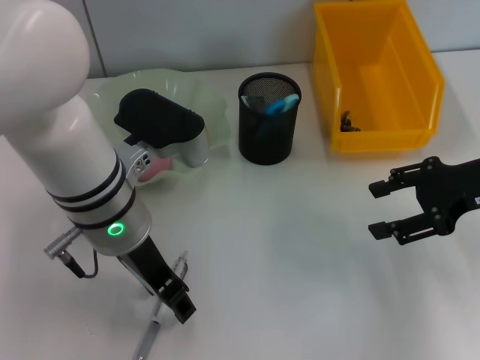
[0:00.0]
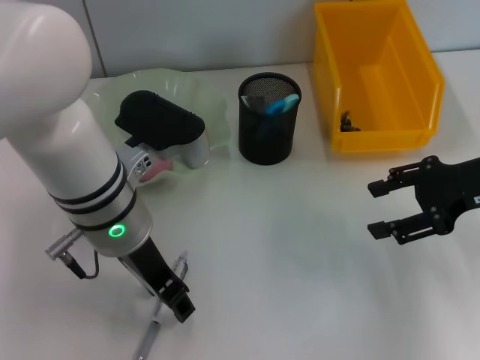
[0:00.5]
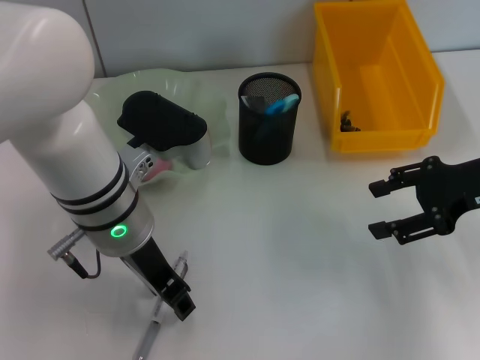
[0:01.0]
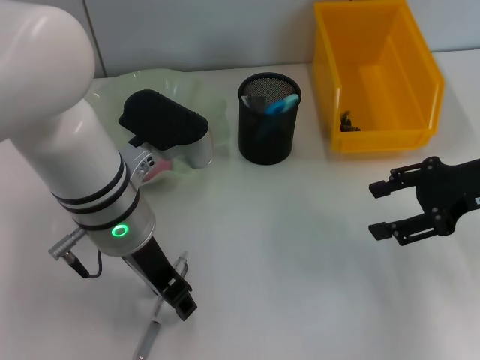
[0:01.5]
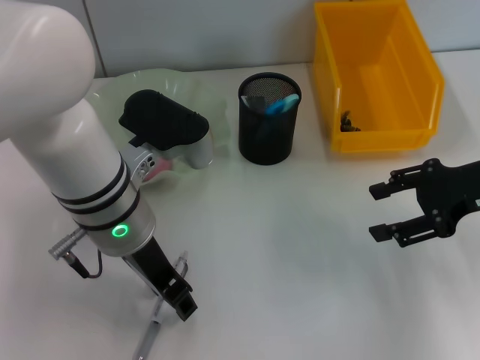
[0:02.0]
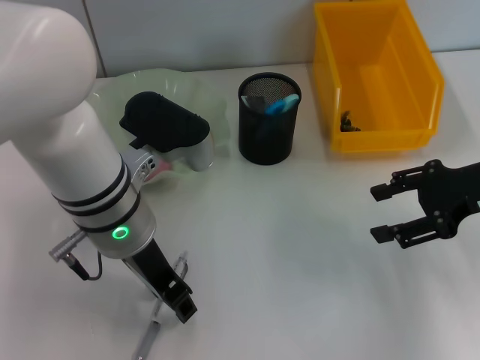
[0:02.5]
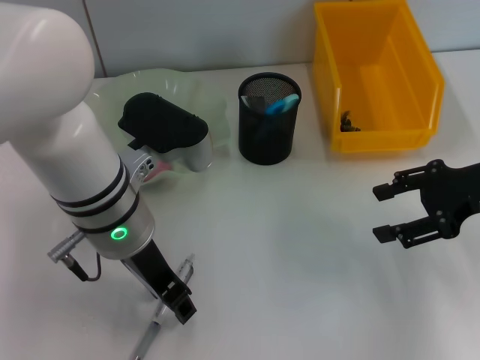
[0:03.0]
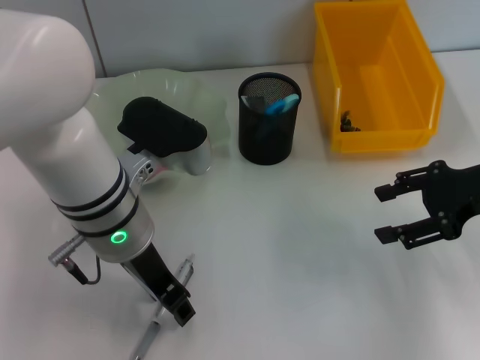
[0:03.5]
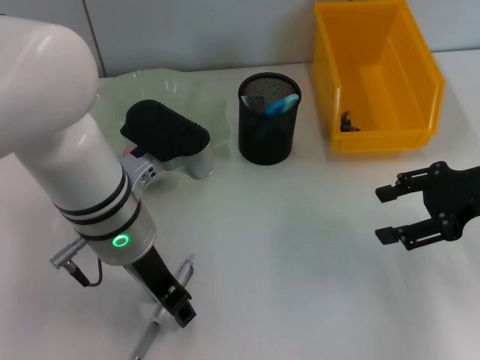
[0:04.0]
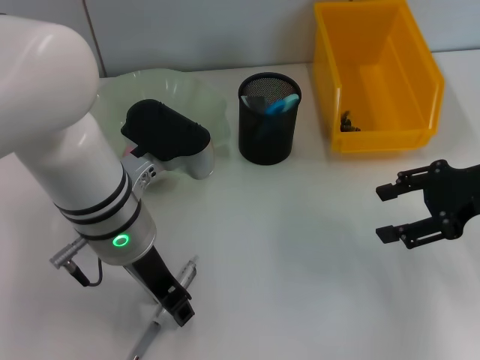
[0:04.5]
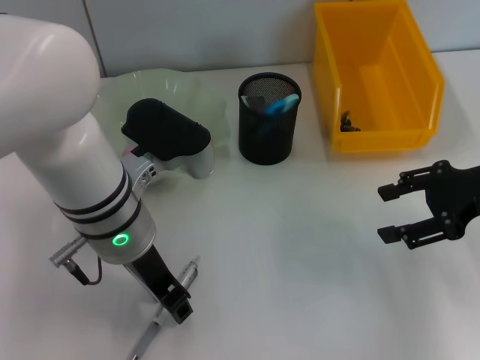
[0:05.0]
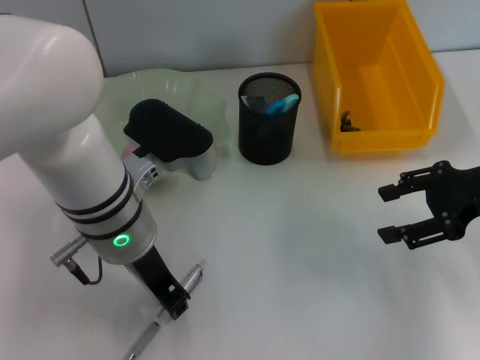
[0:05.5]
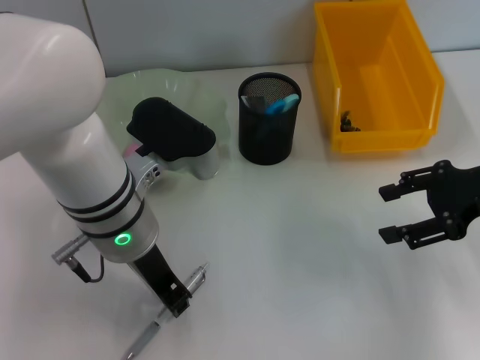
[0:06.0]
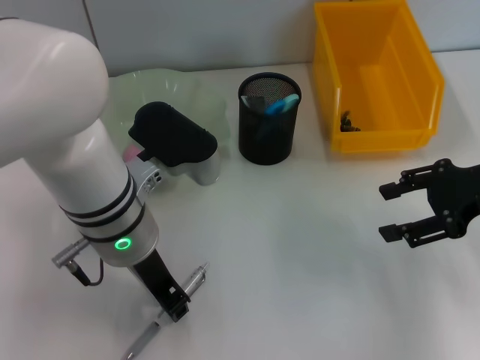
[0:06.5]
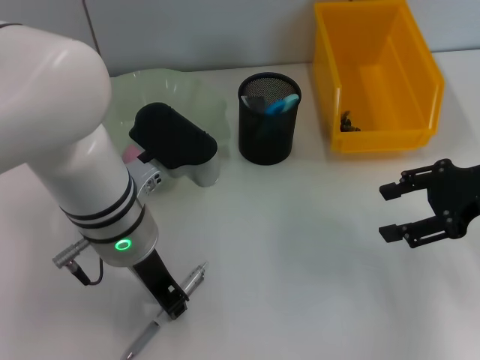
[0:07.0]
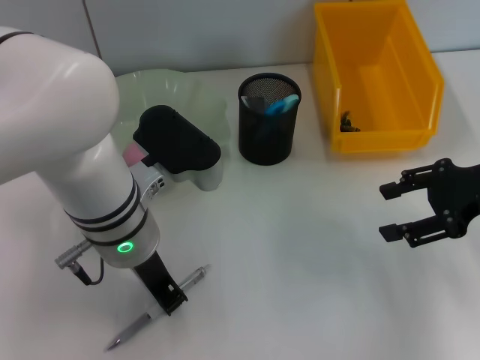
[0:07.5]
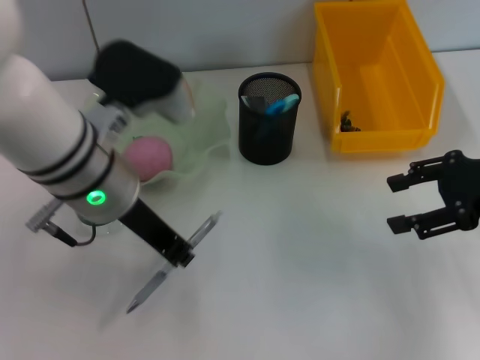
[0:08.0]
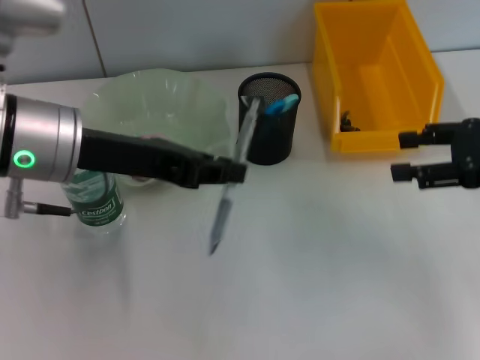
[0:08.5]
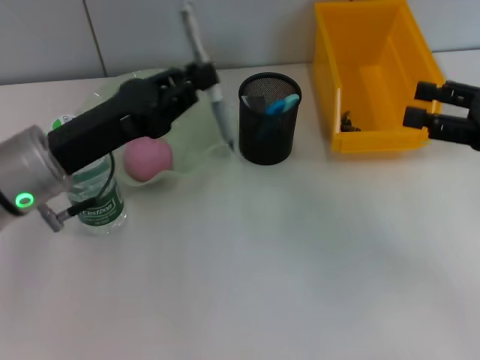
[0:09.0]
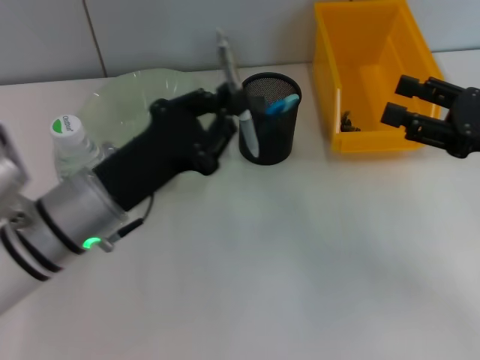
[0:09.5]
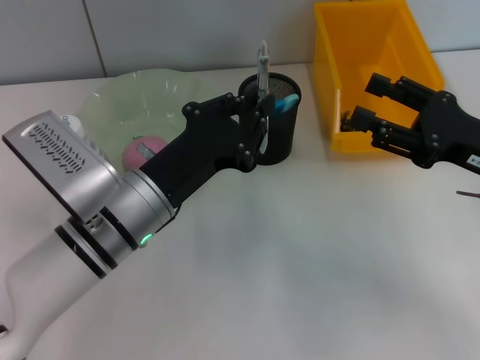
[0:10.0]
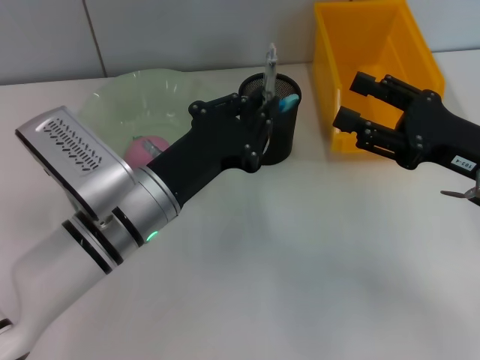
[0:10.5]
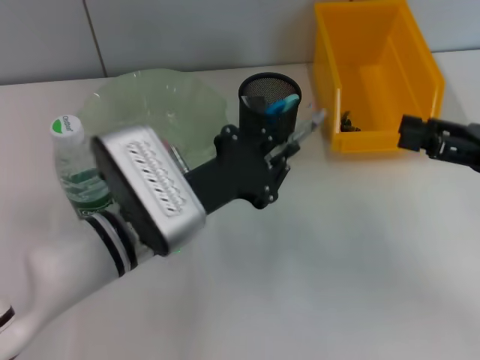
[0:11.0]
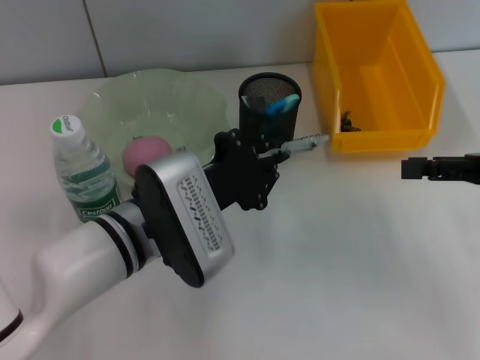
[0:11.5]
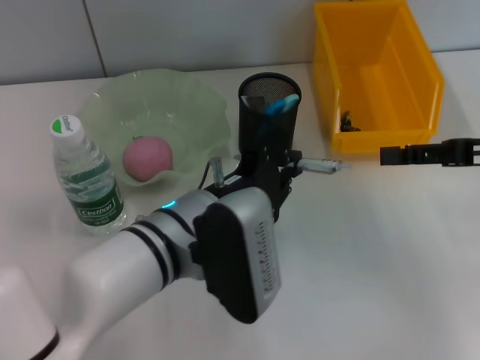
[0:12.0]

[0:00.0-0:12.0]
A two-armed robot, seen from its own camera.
Step, 0:00.0 to 0:07.0: Grab the gray spring-action pen with the left hand.
0:00.0 to 0:04.0: Neither gripper changes place.
0:04.0 to 0:06.0: The left gripper closes up.
0:08.0 to 0:10.0: The right gripper moves roughly 5 cm; the left gripper travels downward by about 10 cm.
0:10.0 to 0:12.0: The right gripper ends up roughly 5 cm from where it was. The left gripper is displaced to the right by approximately 5 cm.

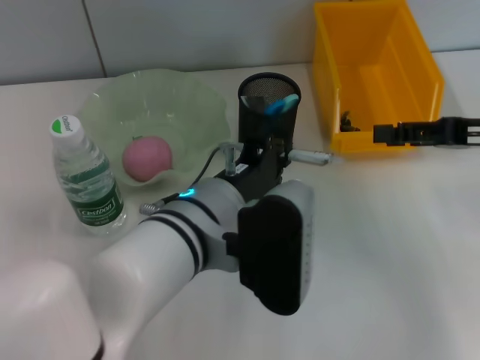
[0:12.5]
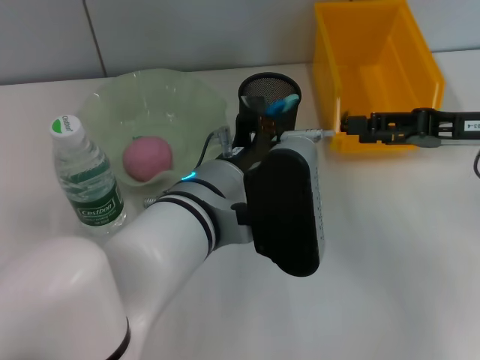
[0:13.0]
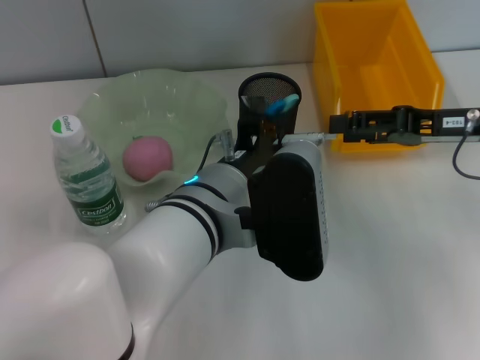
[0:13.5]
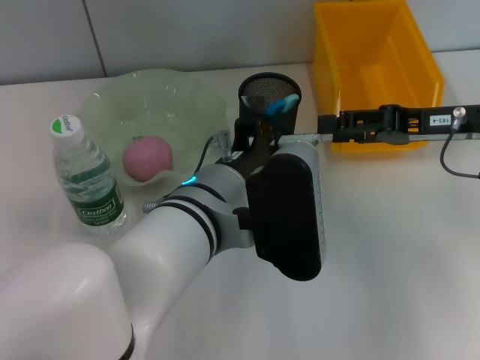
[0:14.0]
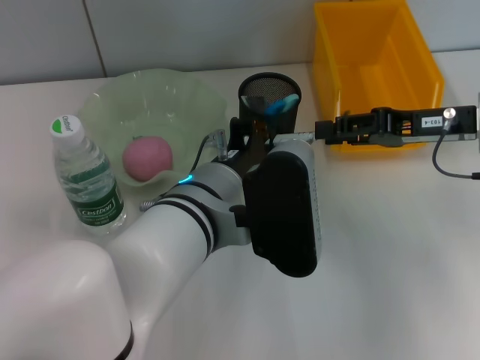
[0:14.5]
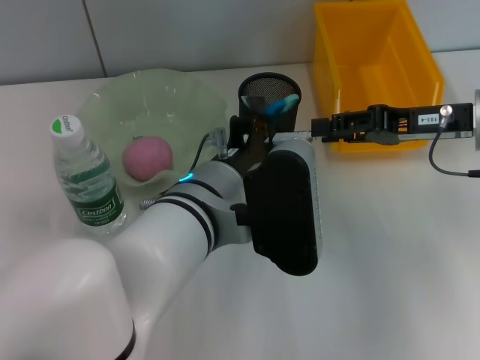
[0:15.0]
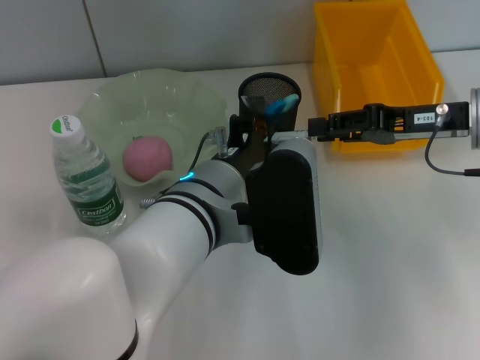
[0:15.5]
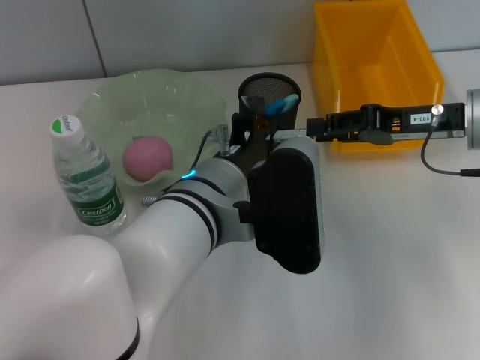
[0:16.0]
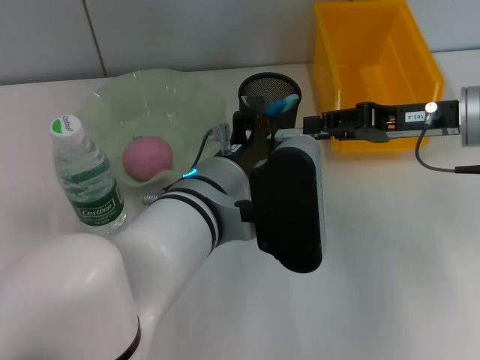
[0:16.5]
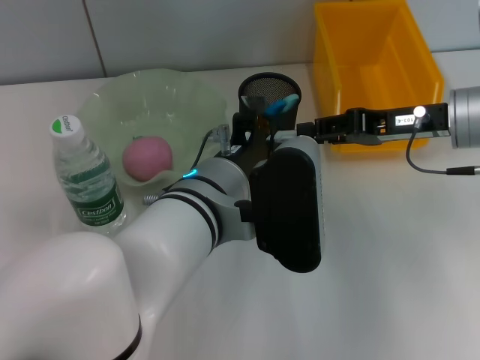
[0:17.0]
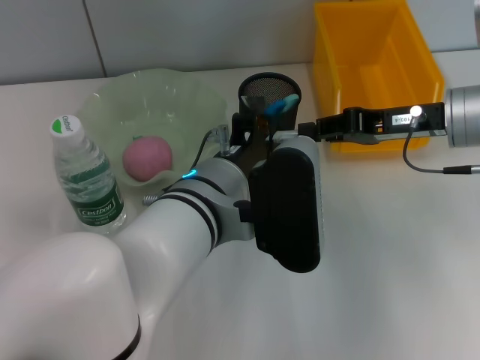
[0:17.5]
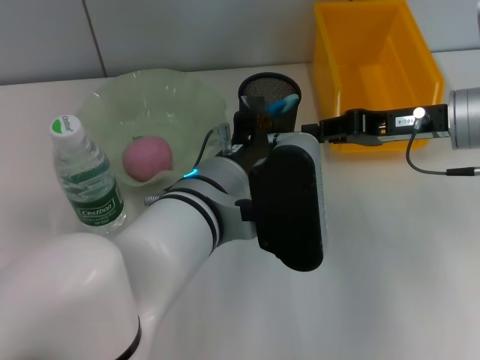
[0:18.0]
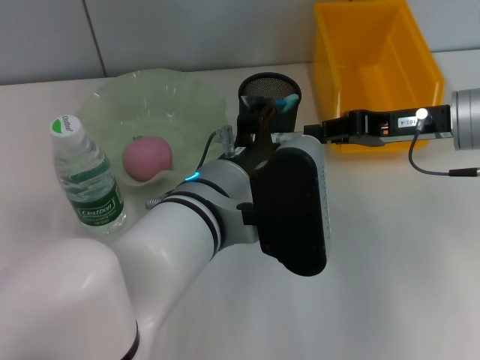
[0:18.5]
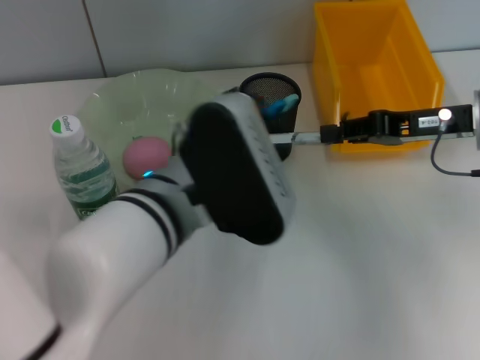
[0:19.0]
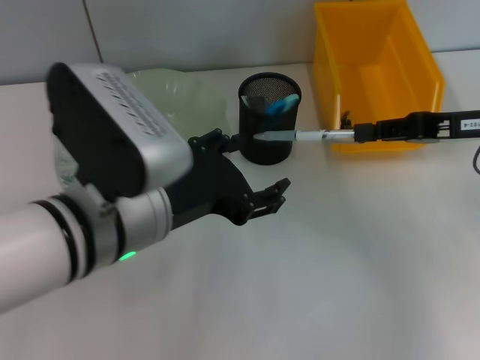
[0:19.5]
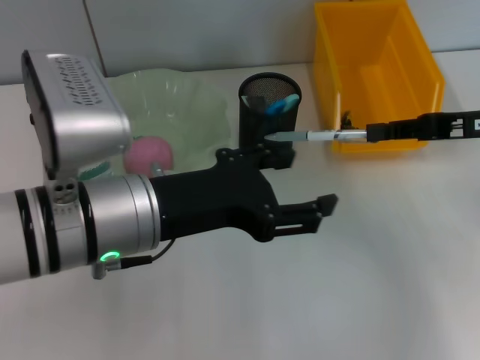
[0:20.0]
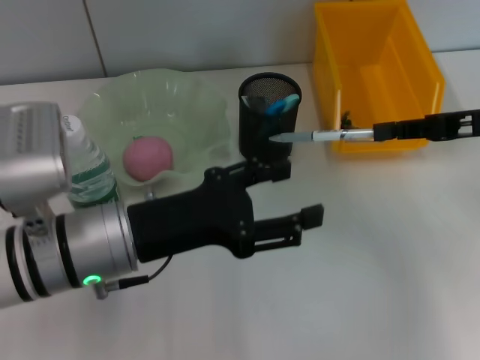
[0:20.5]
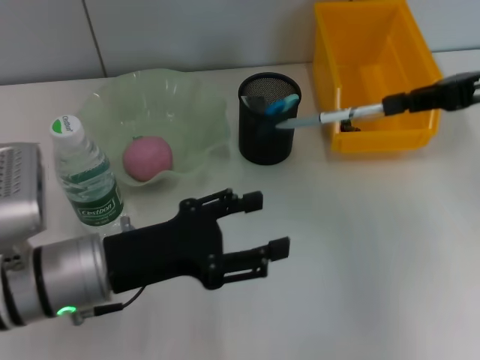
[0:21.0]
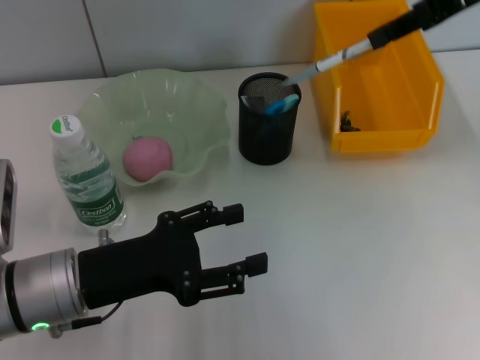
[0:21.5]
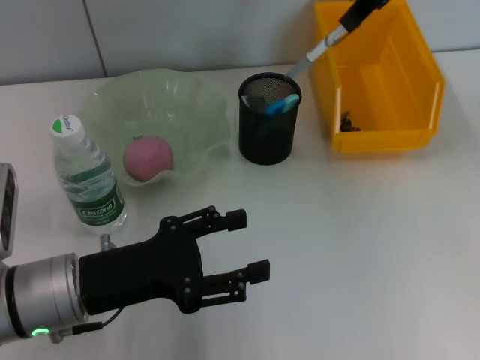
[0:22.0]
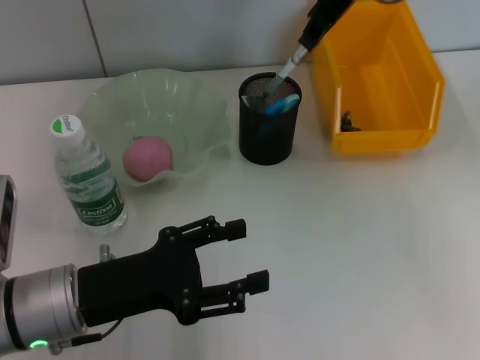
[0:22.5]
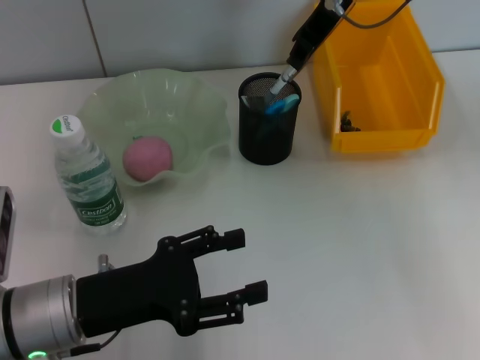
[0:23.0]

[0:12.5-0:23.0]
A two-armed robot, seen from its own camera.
Step, 0:12.5 to 0:17.5: Pass the gray spring-action pen from the left hand to the right hand.
0:12.5 to 0:14.5: The right gripper is displaced to the left by approximately 5 cm.
0:14.5 to 0:16.5: There are only small adjustments of the grippers.
0:16.5 to 0:19.0: The left gripper opens up.
0:19.0 to 0:21.0: The left gripper goes some 15 cm to the left and downward; the right gripper travels upward by some 5 cm.
0:21.0 to 0:23.0: The right gripper shifts some 20 cm to the left and forward.

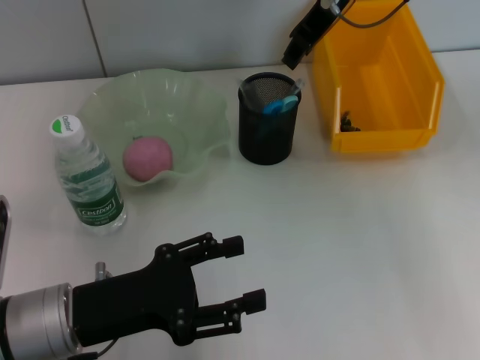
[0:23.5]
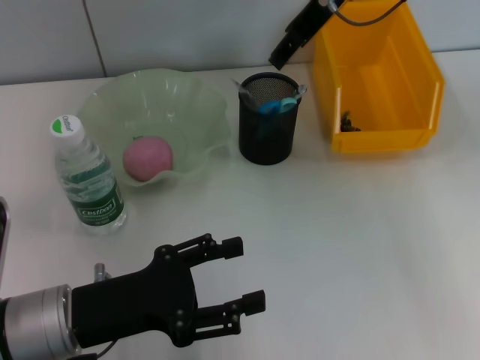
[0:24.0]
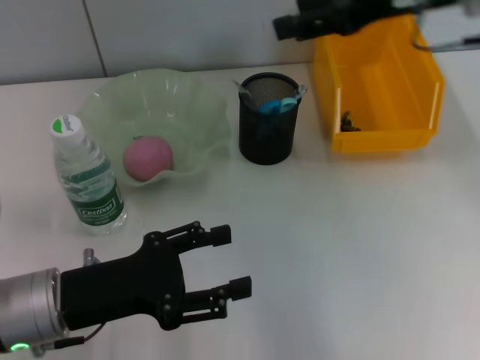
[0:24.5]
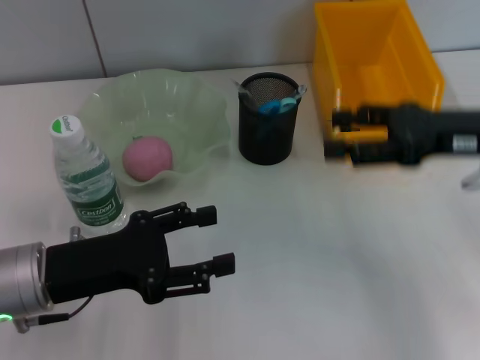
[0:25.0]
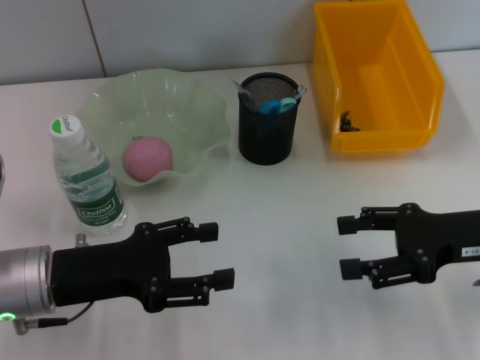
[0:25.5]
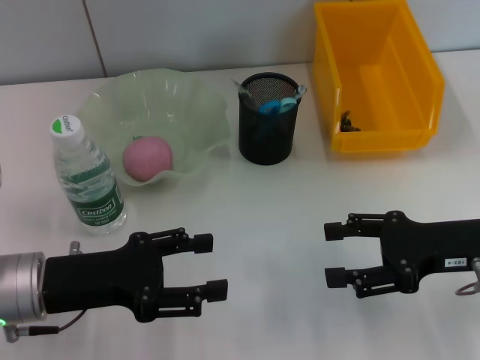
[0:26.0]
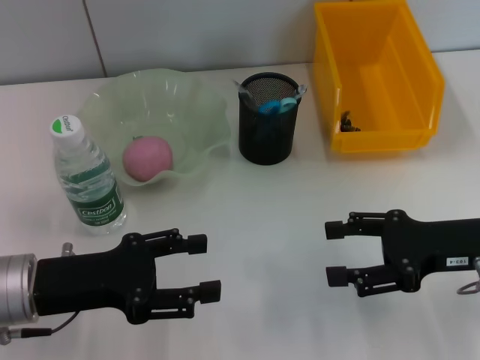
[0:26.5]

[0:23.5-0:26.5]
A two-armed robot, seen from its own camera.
0:23.5 to 0:25.0: The right gripper heads to the right, backward and downward, covering some 25 cm, and opens.
0:25.0 to 0:26.5: The right gripper shifts some 5 cm downward.
